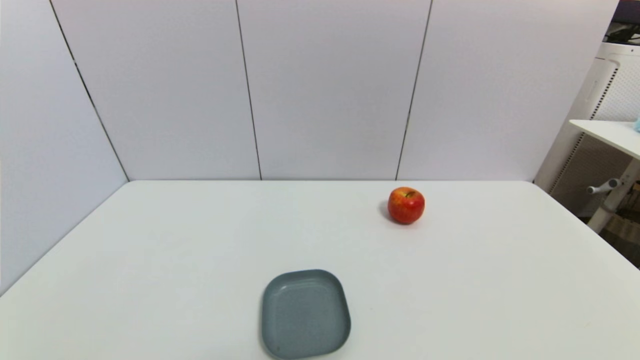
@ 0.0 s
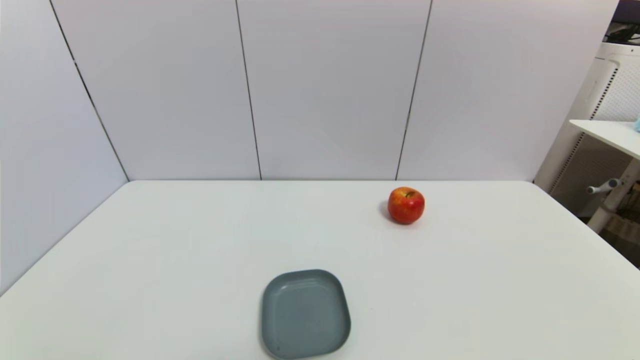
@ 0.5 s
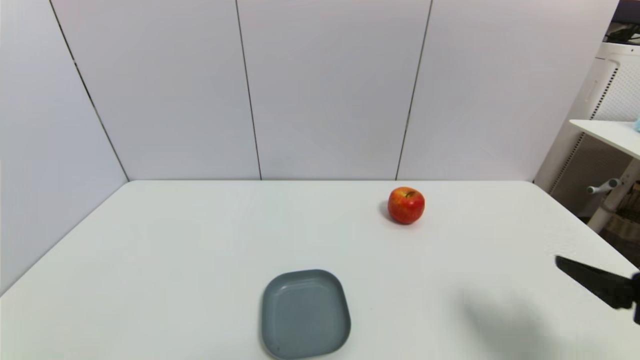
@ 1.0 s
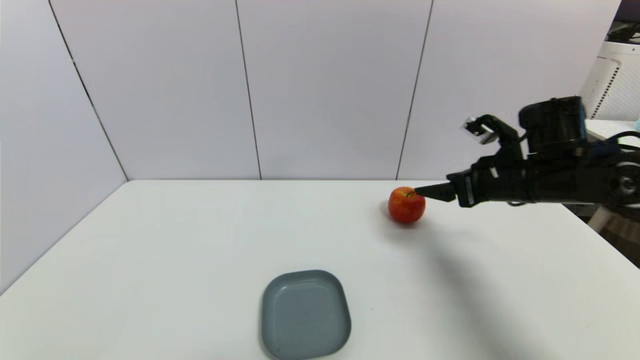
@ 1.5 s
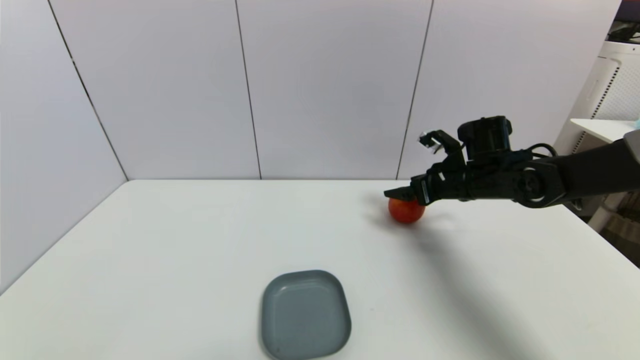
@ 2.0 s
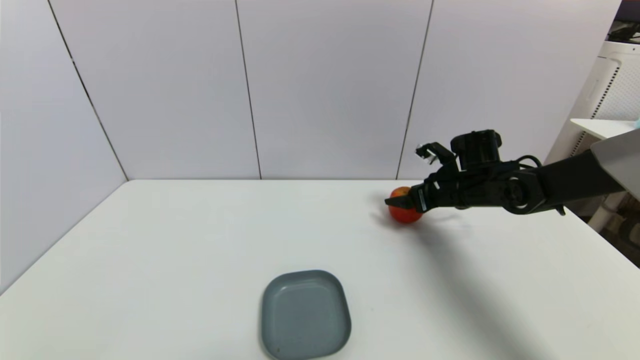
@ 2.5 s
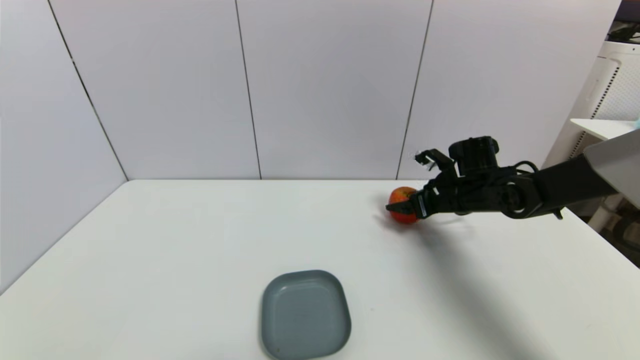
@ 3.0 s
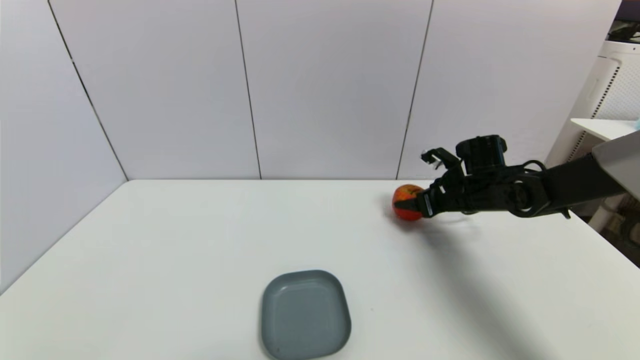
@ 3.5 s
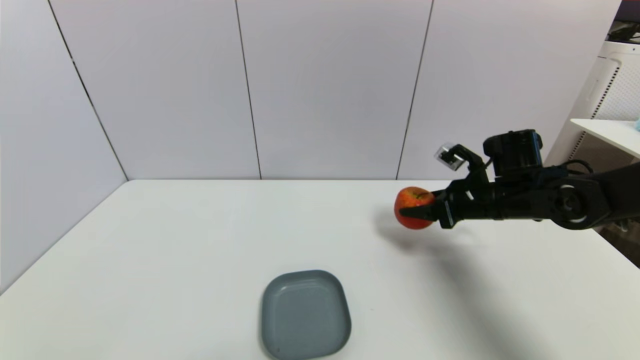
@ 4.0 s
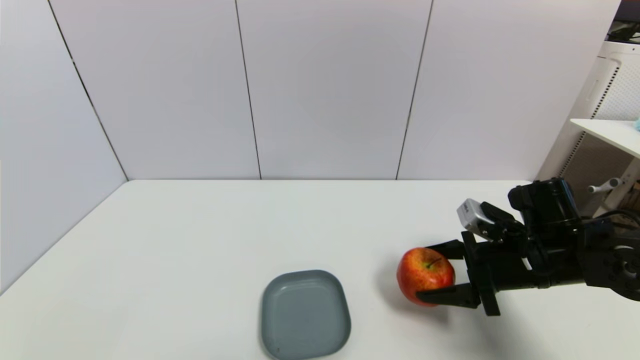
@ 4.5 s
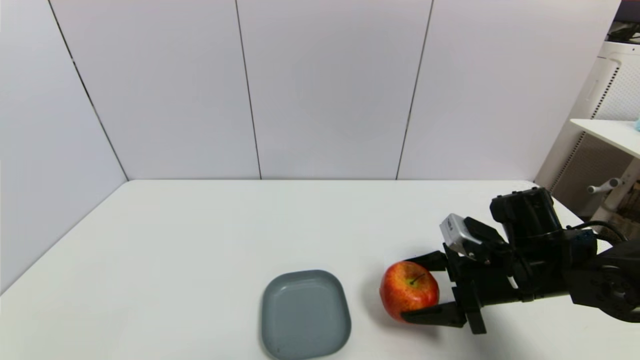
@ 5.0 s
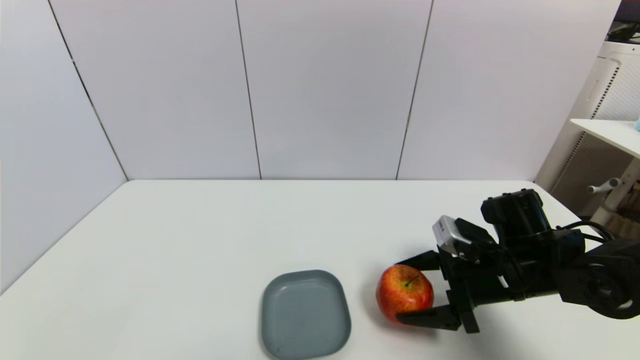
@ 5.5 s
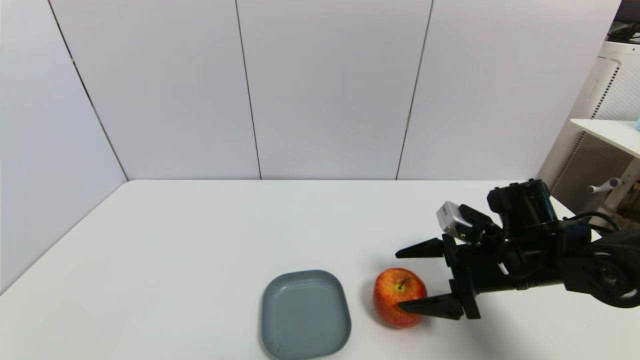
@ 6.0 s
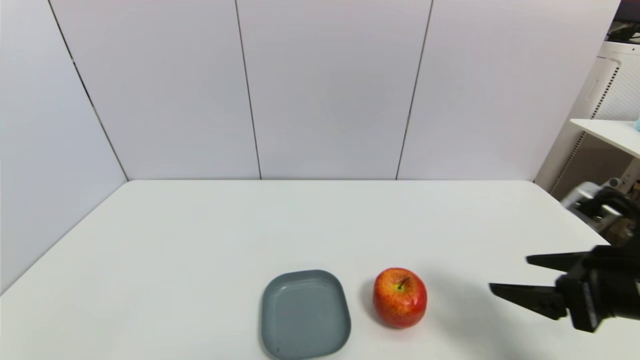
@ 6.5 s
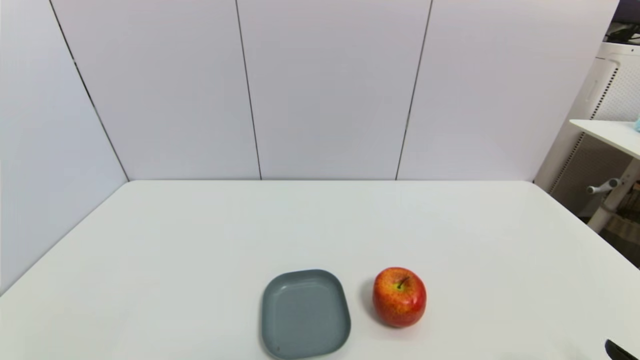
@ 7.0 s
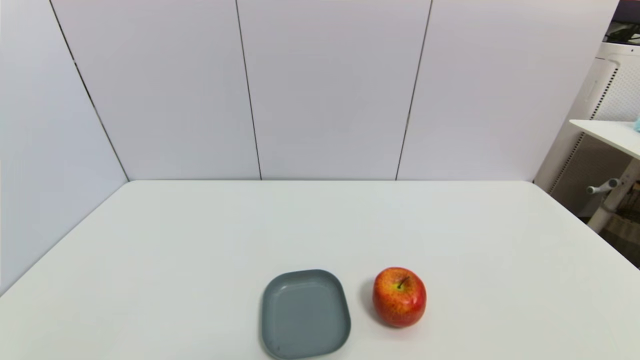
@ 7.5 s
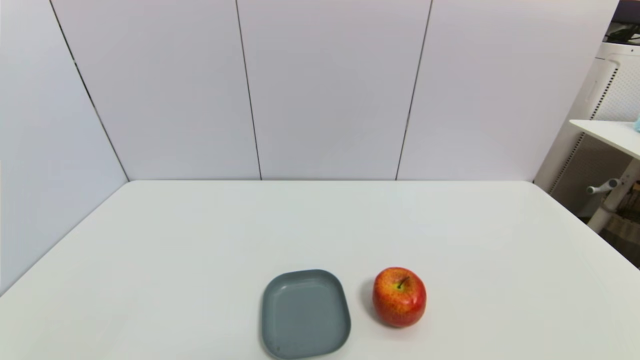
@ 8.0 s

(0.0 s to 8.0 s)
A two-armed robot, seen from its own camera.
Task of the whole recording: put the apple in the designated position.
Step, 1.0 s - 3.0 s: Grasp the apple with right gripper.
Step, 3.5 s - 6.0 s: Place the apple on the table with right gripper.
0.0 s - 2.0 s: The right gripper shifts some 40 cm forward.
2.0 s - 4.0 s: The right gripper goes roughly 5 cm backward, and closes its fingers.
4.0 s - 6.0 s: The right gripper moves backward, some 10 cm, and opens.
6.0 s - 8.0 s: The right gripper goes some 30 cm backward.

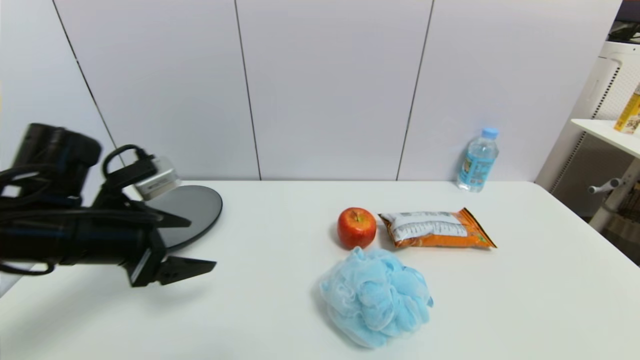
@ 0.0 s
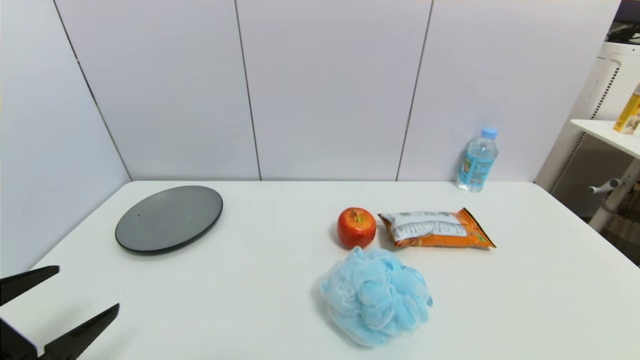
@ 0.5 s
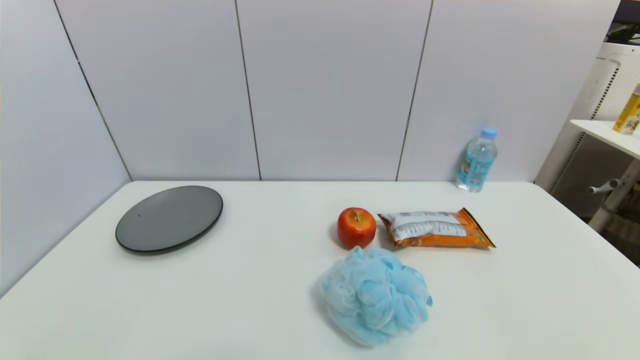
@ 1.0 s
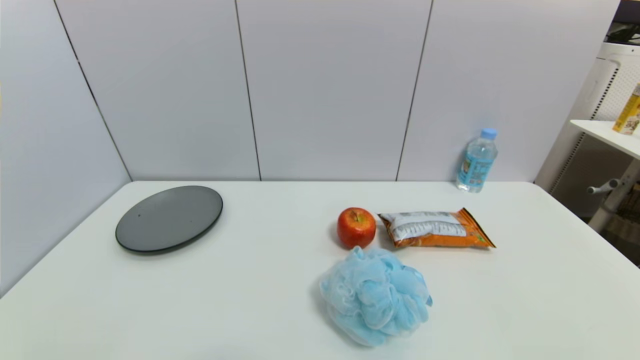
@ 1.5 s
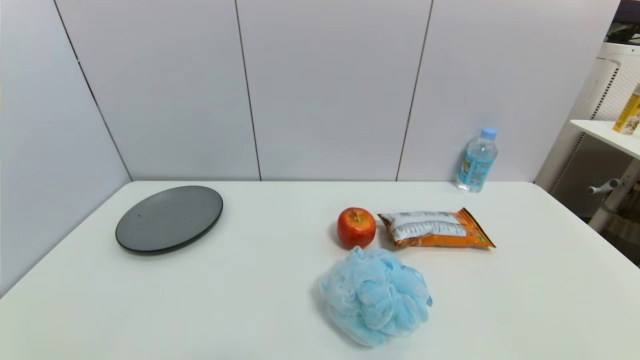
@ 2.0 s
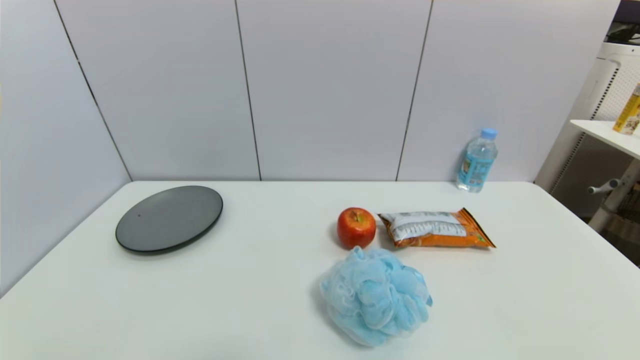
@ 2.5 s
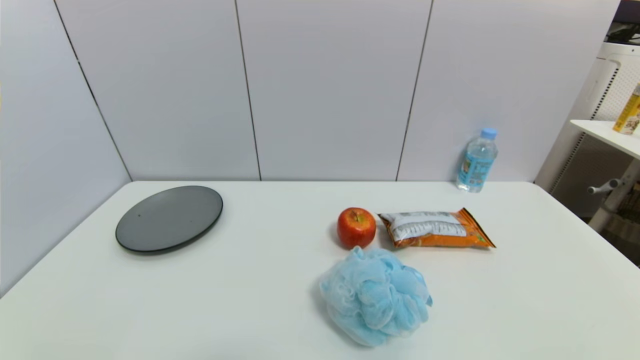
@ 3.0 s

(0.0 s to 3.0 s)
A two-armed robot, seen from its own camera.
Task of the whole recording: put the apple in the designated position.
0.0 s - 1.5 s: The left gripper moves backward and downward, approximately 25 cm.
1.5 s - 3.0 s: Both grippers stay put.

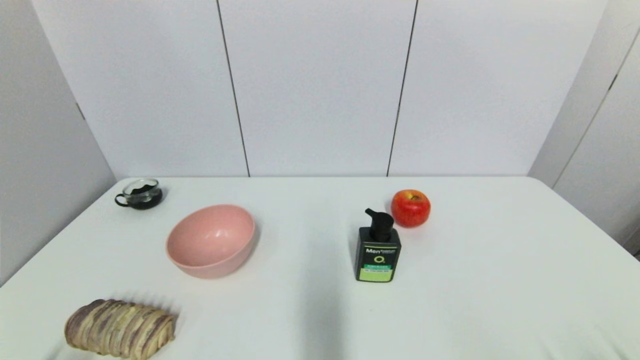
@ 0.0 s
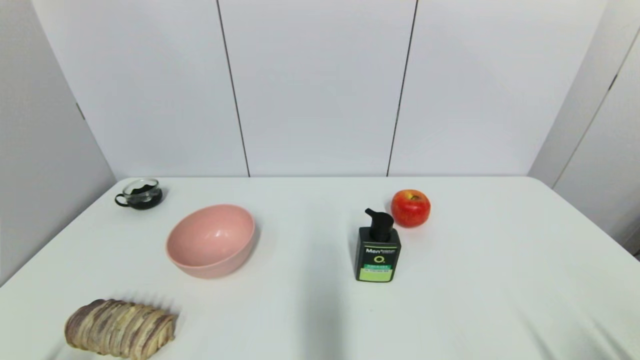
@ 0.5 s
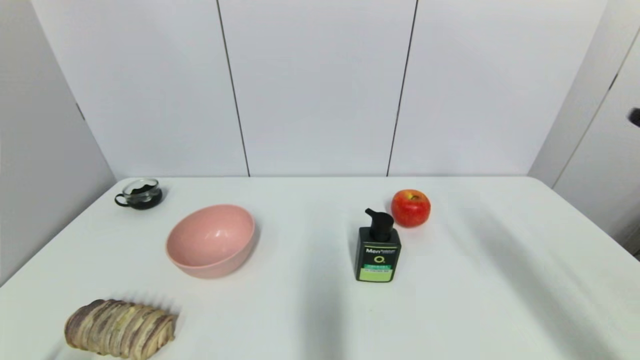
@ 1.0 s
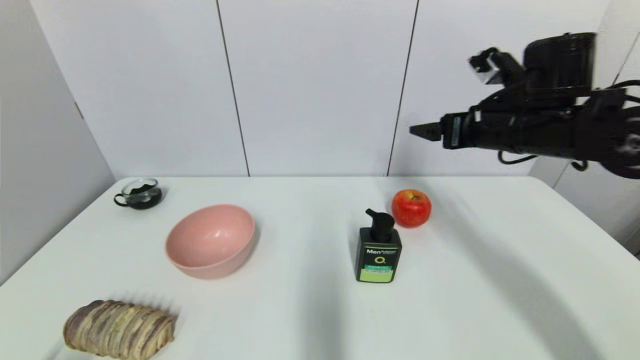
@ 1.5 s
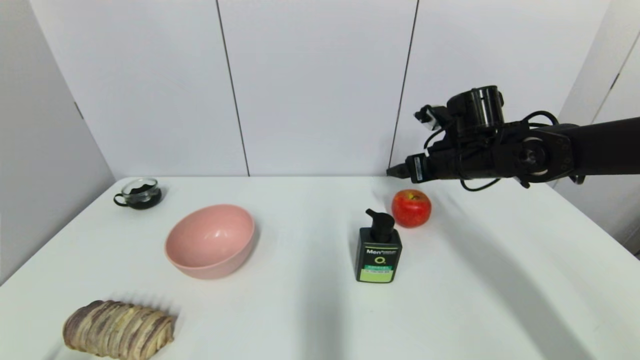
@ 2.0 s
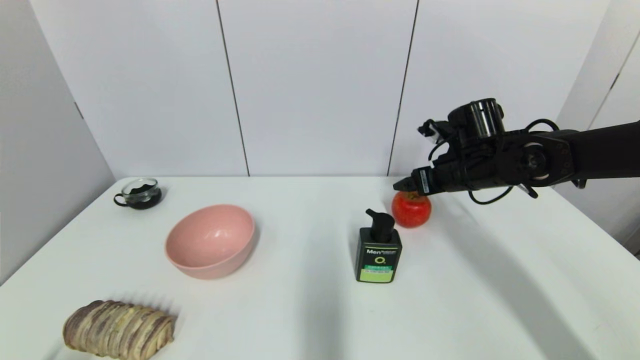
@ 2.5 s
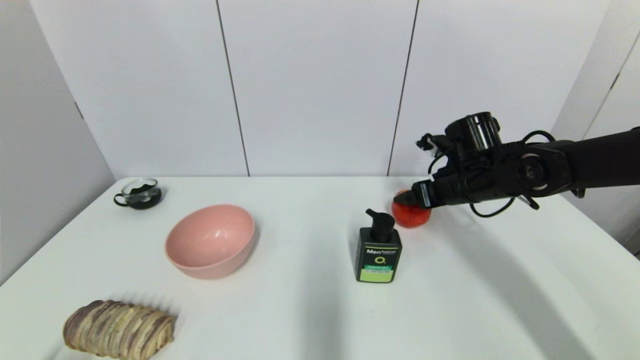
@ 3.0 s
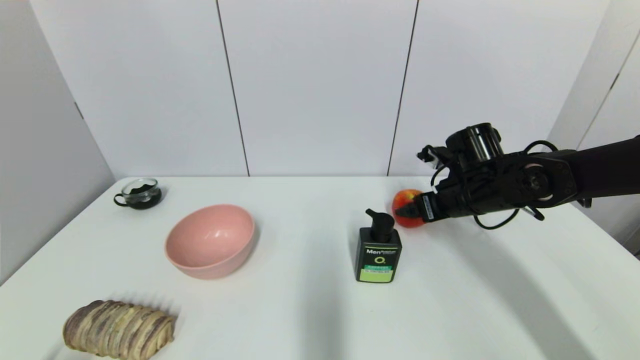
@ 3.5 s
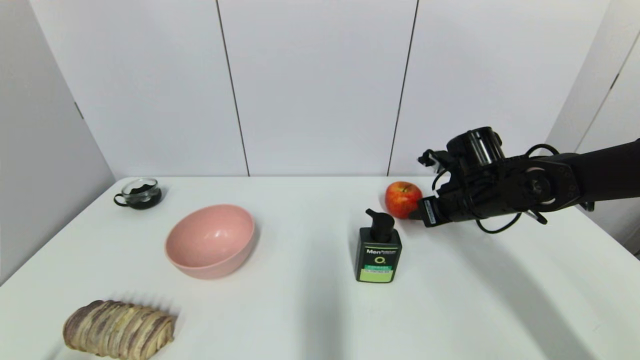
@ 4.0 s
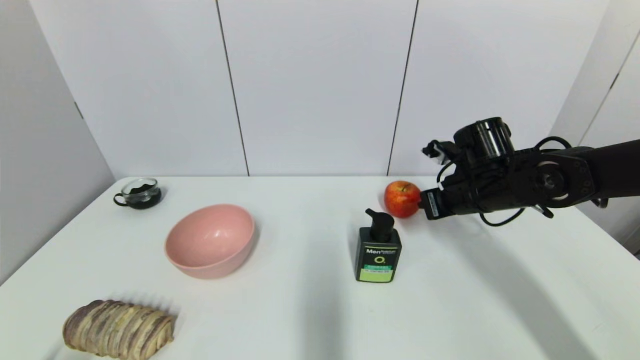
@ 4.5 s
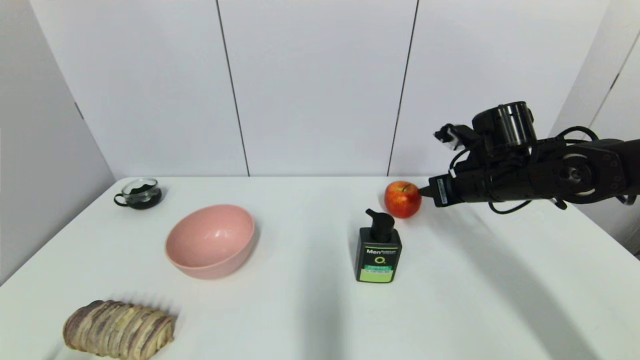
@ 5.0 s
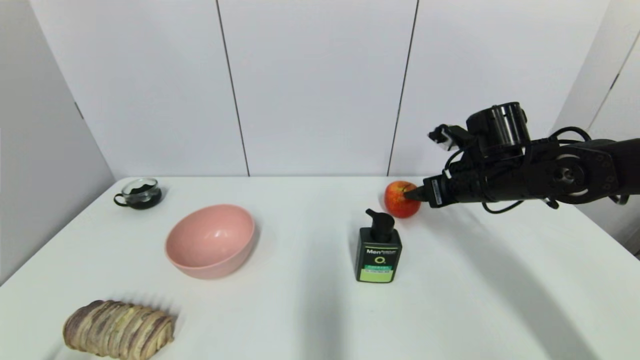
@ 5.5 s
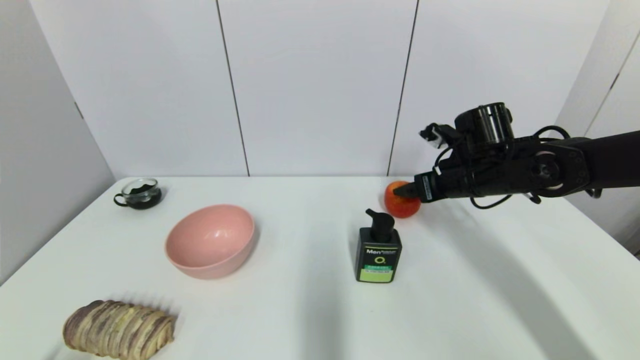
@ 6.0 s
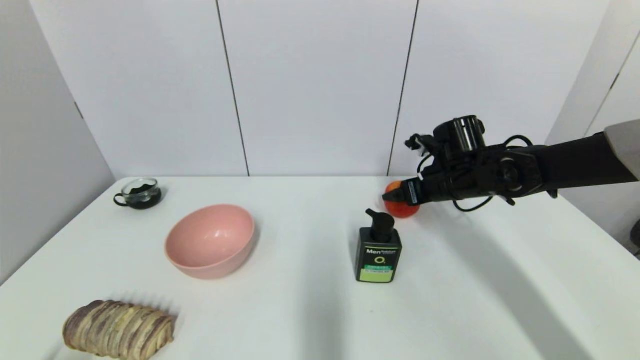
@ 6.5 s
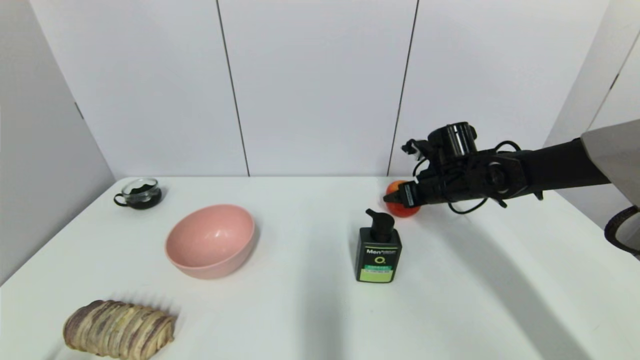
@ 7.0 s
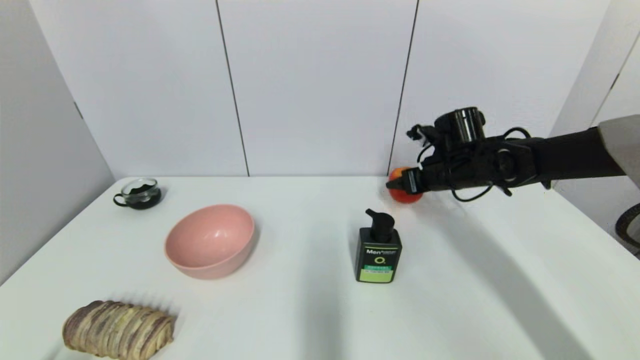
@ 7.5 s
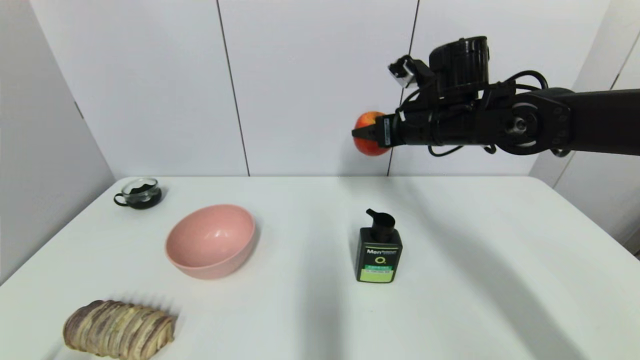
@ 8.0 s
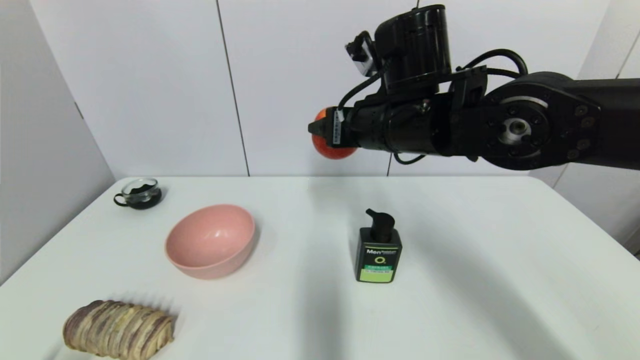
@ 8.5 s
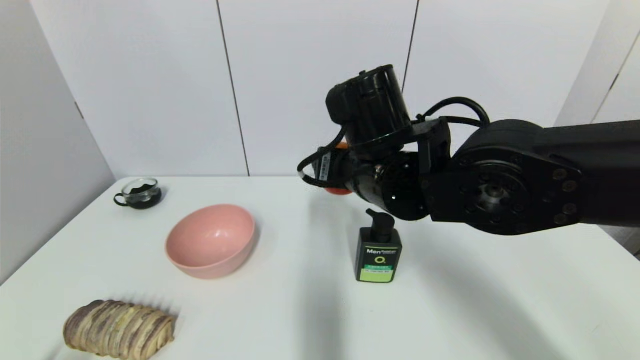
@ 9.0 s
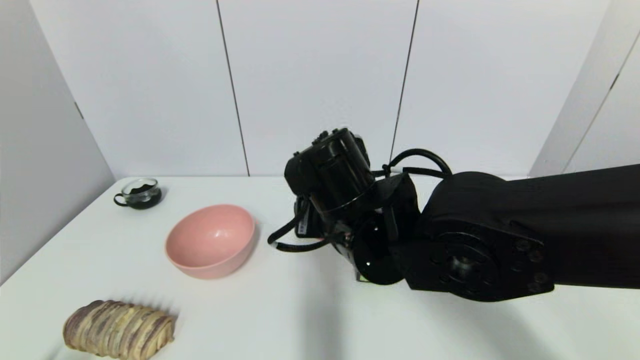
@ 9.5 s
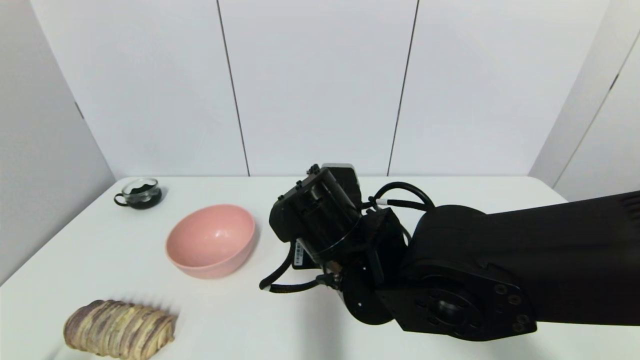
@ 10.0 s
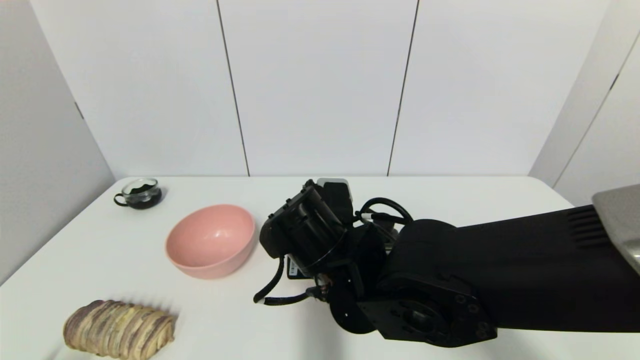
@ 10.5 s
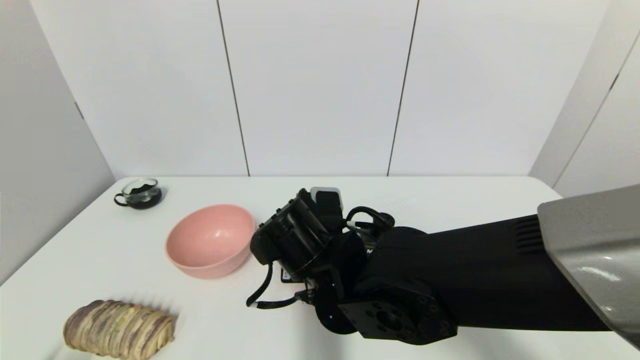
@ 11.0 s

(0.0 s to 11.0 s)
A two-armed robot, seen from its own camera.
Task of the whole recording: put the apple in the designated position.
Step, 1.0 s - 7.0 s: Grasp the apple with right gripper.
0.0 s - 2.0 s: The right gripper travels forward by about 40 cm.
2.0 s - 3.5 s: The right gripper moves approximately 5 cm.
3.5 s - 5.5 s: The right gripper closes, then reopens.
5.5 s - 7.5 s: The right gripper moves forward, about 5 cm.
7.5 s - 9.0 s: The right gripper is displaced to the left, backward and upward by some 25 cm.
9.0 s - 11.0 s: The right gripper moves downward and to the left, approximately 10 cm.
